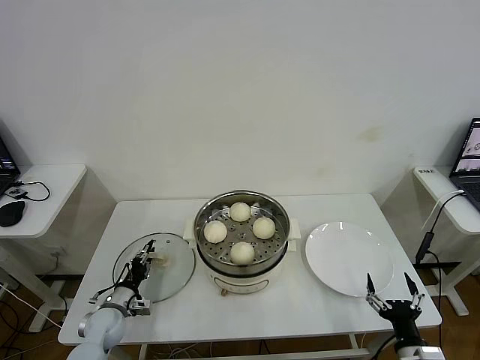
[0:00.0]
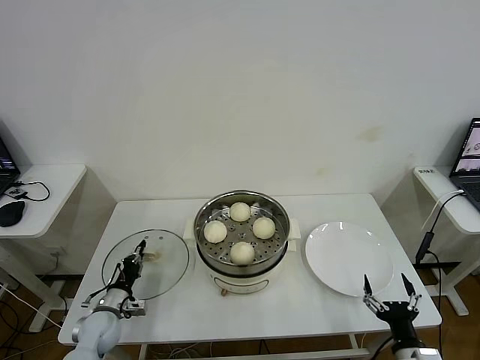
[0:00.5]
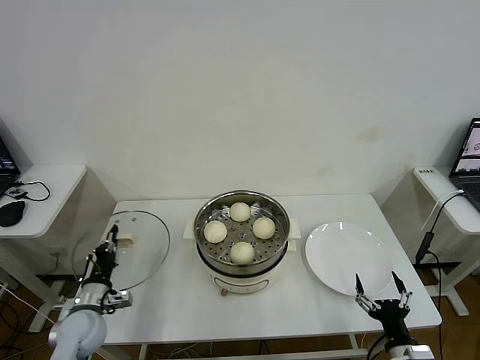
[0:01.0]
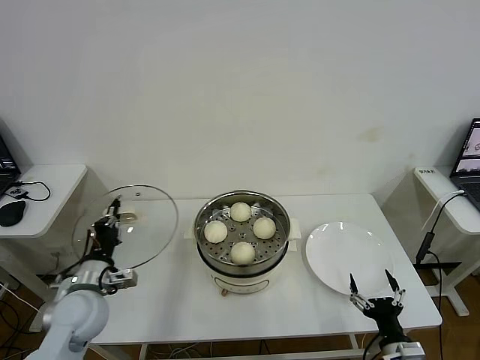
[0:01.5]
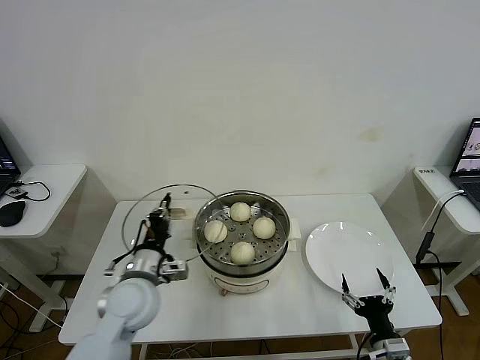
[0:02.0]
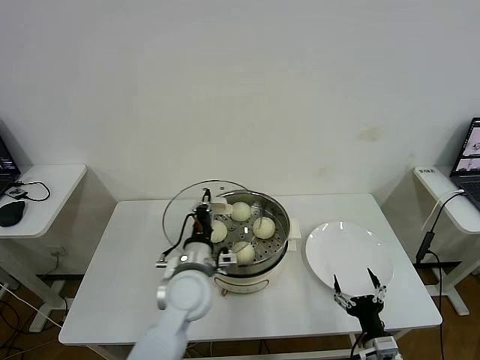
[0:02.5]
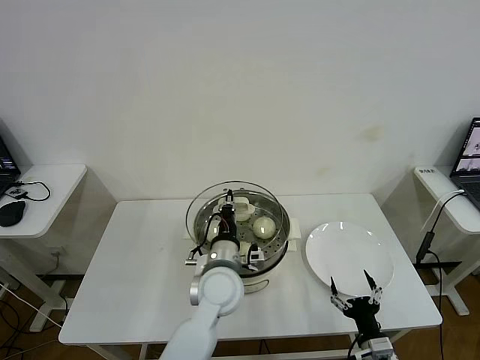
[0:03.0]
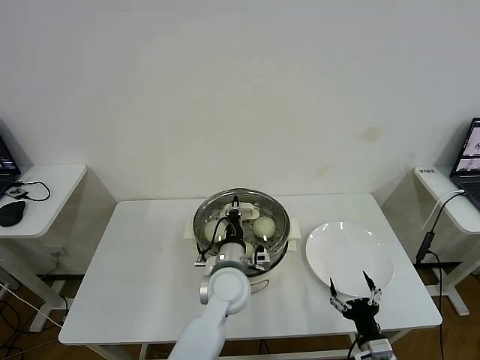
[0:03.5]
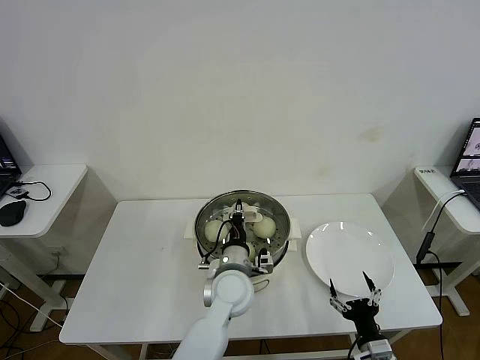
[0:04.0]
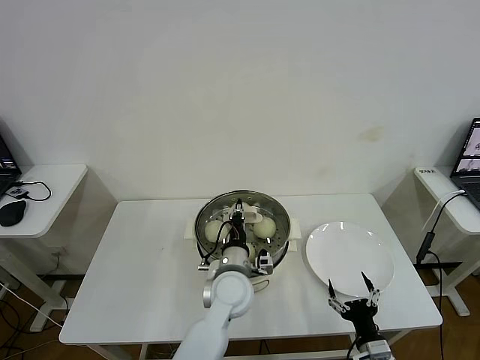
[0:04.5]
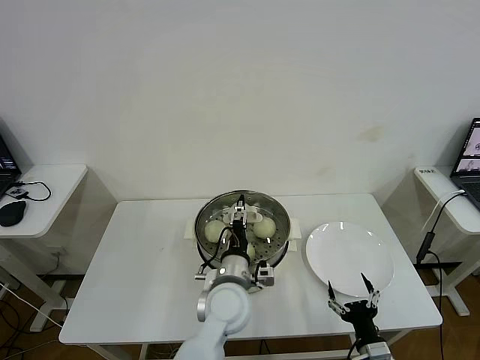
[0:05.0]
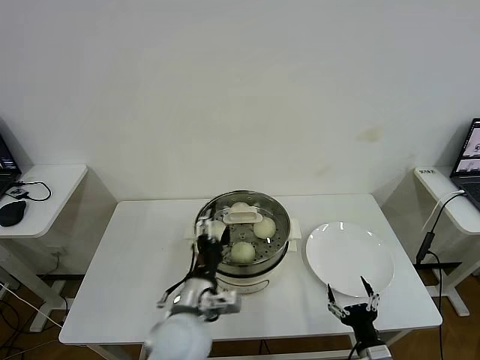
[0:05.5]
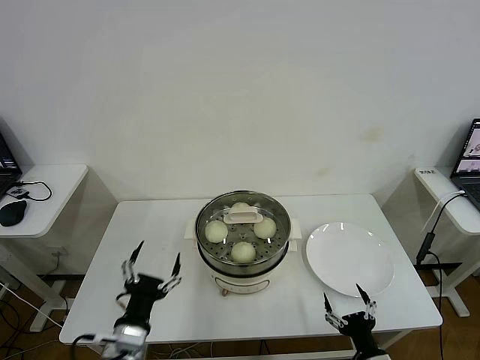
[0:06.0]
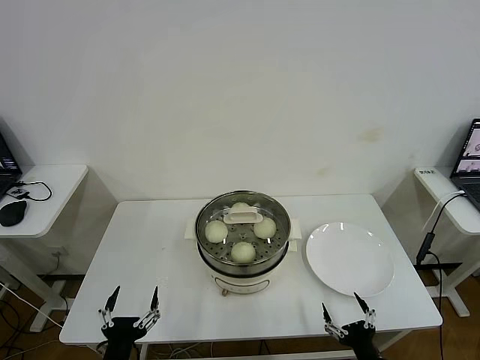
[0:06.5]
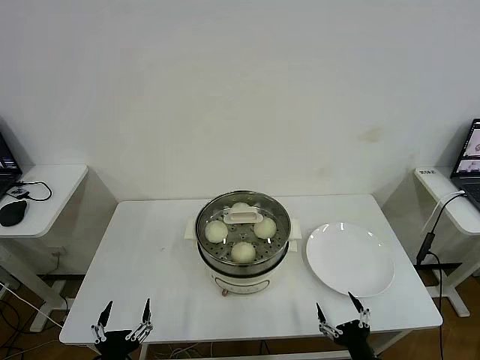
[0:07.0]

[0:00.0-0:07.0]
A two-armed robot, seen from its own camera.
Task of the whole recording: take steamed baozi put them in steamer then cover it.
Step, 0:00.5 to 0:05.0: Place the pot lid on the steamer with left gripper.
0:00.0 to 0:02.0: The left gripper heads upward and to the right, covering roughly 25 cm, and closes.
0:02.0 to 0:03.5: The left gripper moves to the right, about 20 cm.
0:03.5 to 0:05.0: The left gripper opens.
0:05.0 to 0:07.0: The left gripper goes approximately 35 cm to the left and backward.

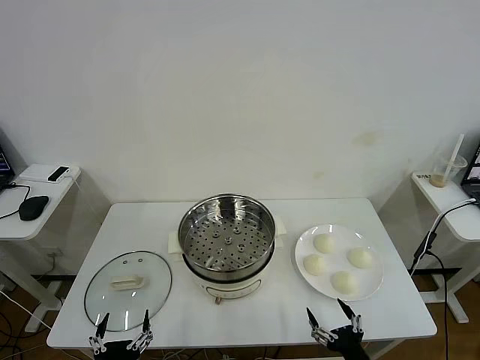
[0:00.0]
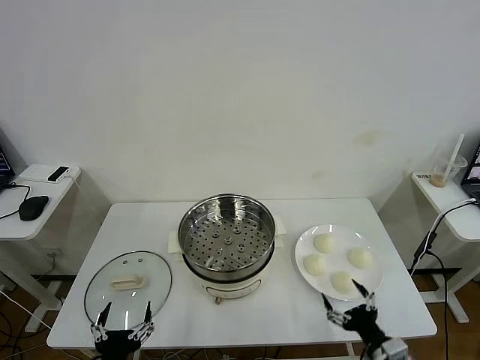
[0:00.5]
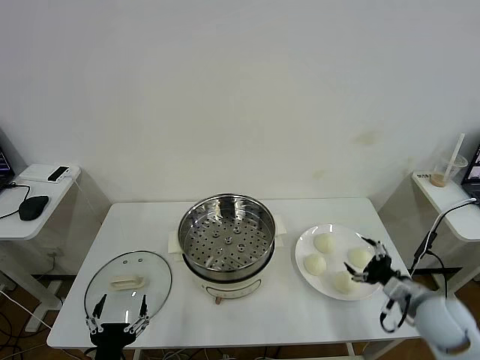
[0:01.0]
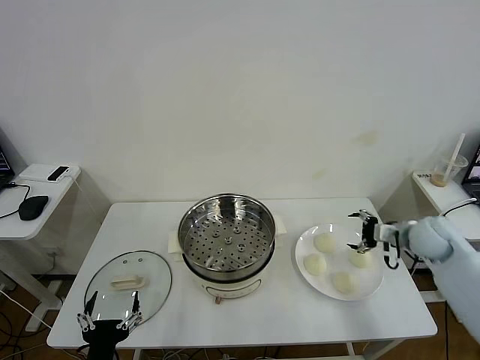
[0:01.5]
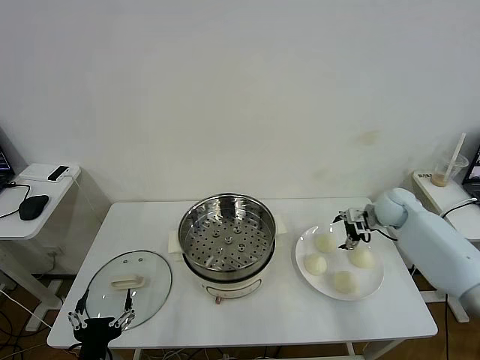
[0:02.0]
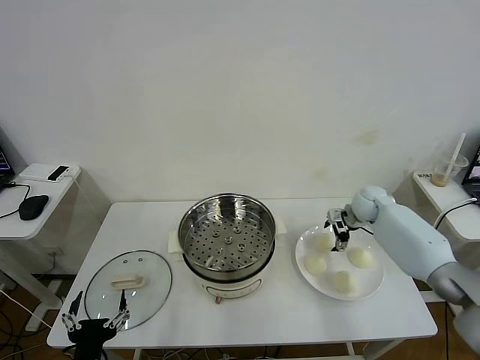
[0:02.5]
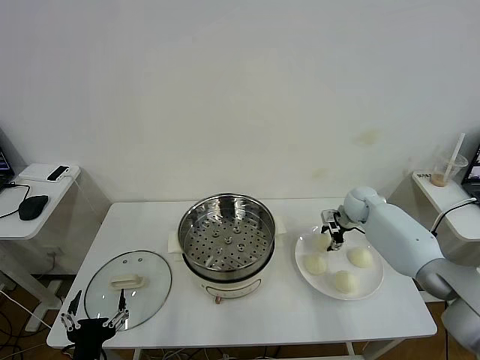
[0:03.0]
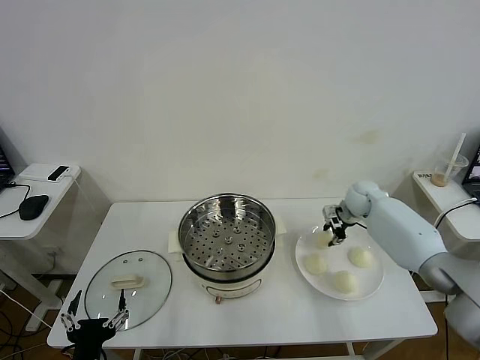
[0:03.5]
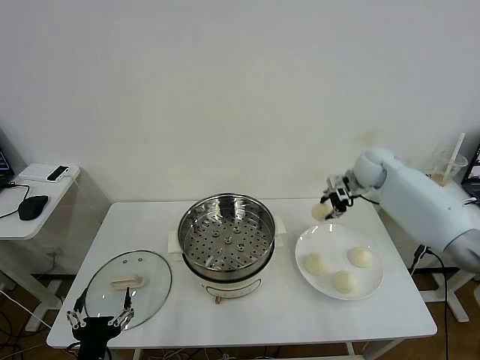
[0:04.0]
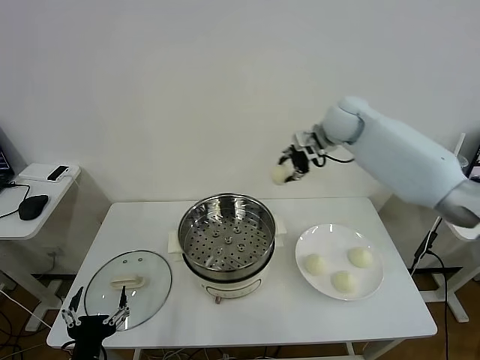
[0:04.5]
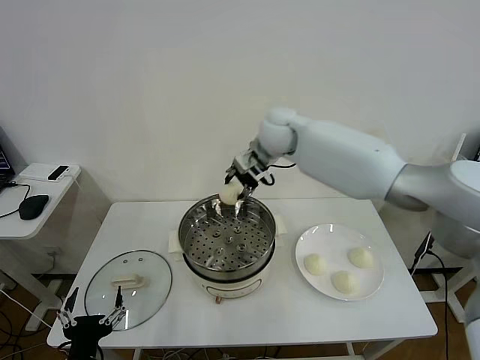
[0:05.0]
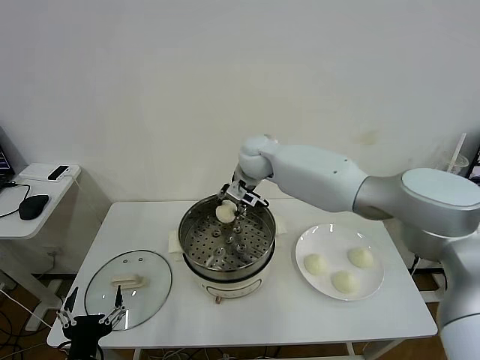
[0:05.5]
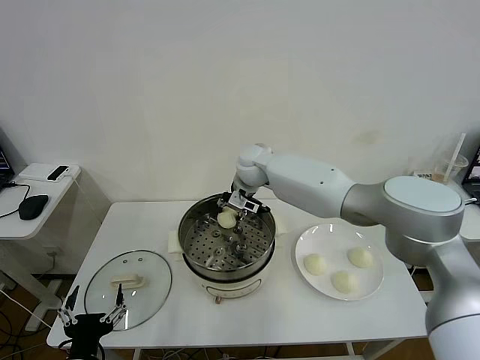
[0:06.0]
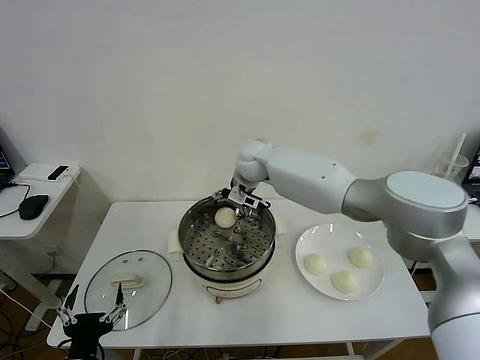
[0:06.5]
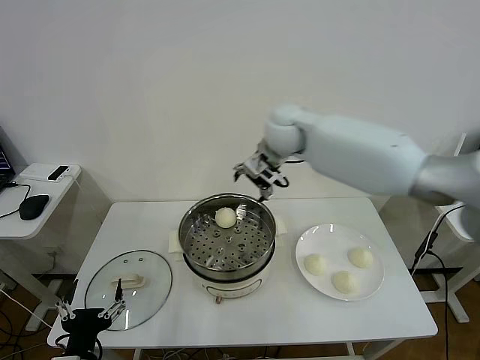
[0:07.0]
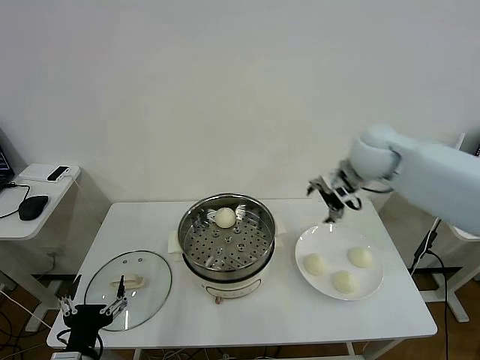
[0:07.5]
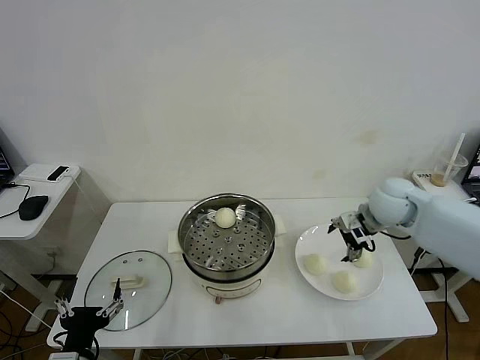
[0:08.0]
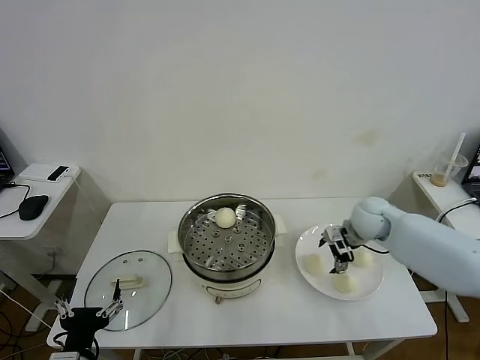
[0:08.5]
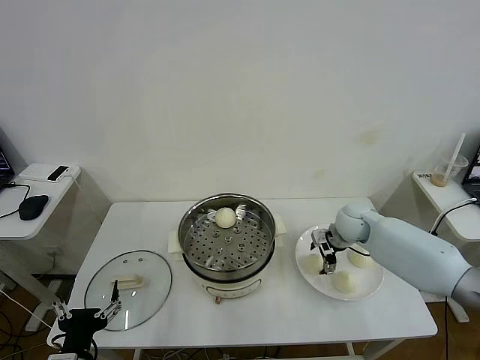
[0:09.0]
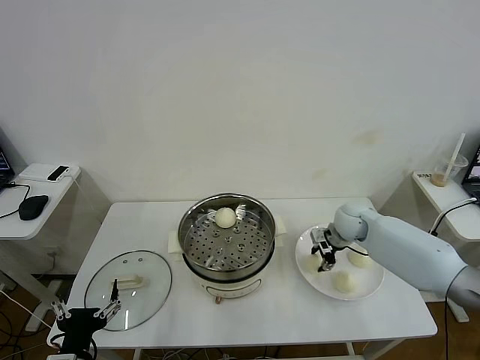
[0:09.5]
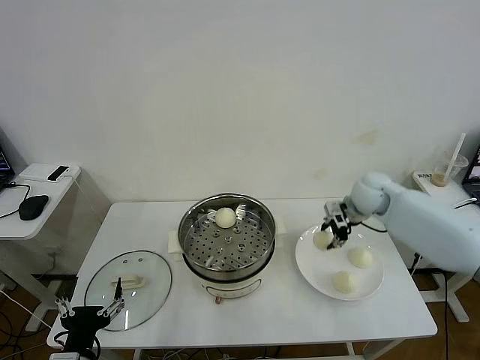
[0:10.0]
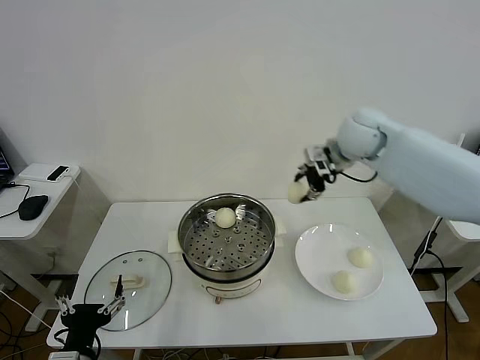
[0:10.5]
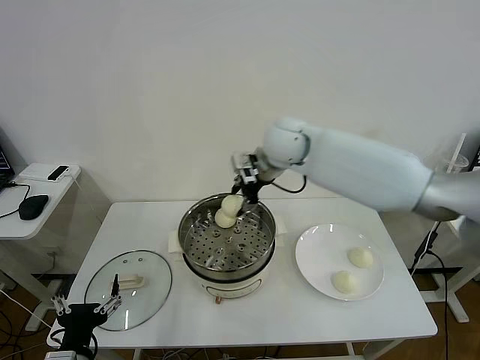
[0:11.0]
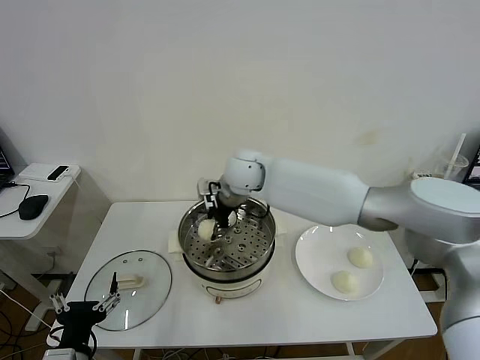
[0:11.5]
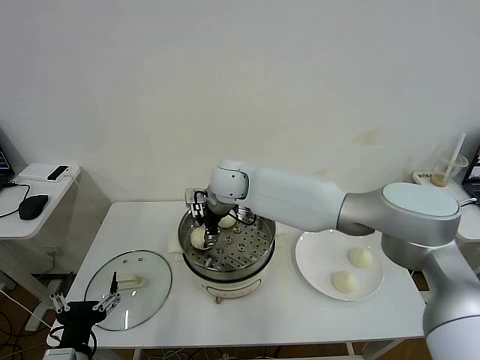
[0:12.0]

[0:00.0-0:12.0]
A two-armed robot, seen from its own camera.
Task of the whole recording: take steamed baozi put them in steamer then cover it.
Step, 0:00.0 to 0:03.0: Grasp the baozi in the plate with right gripper.
Step, 0:03.5 to 0:06.0: Place the baozi on the steamer with right gripper.
Step, 0:07.0 to 0:09.0: Grasp the baozi in the plate with right gripper.
0:02.0 to 0:04.0: The right gripper is displaced upward and to the left by some 15 cm, and closes.
0:04.0 to 0:06.0: The right gripper heads to the left, covering roughly 30 cm.
0:06.0 to 0:08.0: The right gripper travels to the right and backward by about 30 cm, and opens.
0:08.0 to 0:10.0: The right gripper moves forward, roughly 5 cm, reaches about 10 cm downward, then returns, and closes its fingers.
0:10.0 to 0:12.0: The right gripper shifts roughly 35 cm to the left, and opens its fingers.

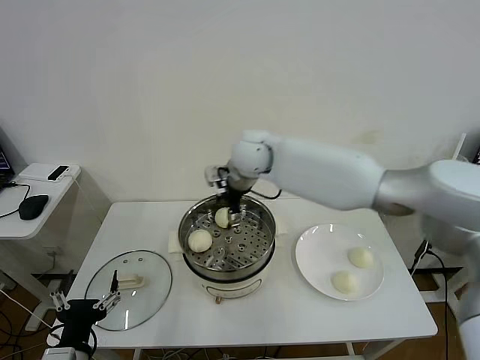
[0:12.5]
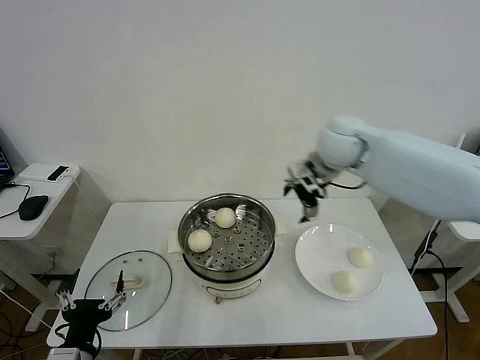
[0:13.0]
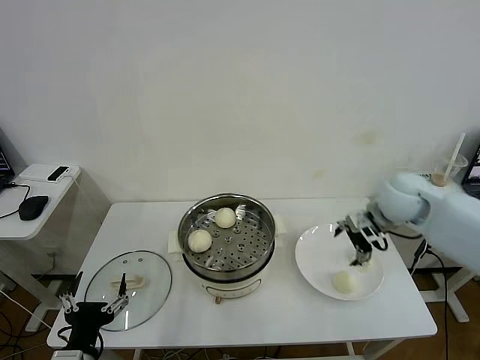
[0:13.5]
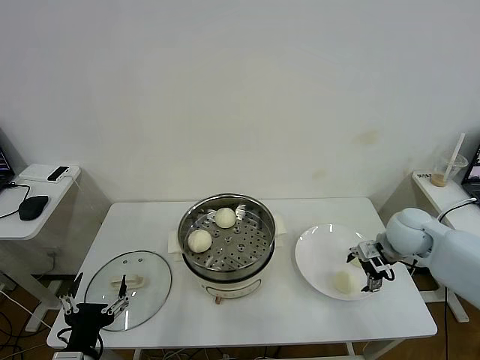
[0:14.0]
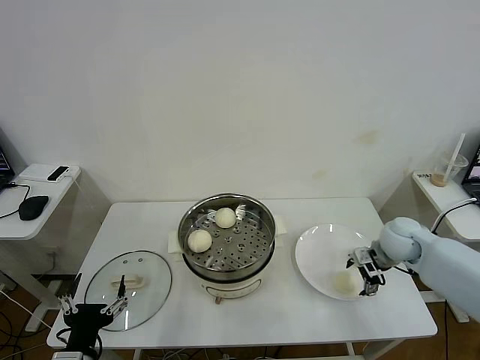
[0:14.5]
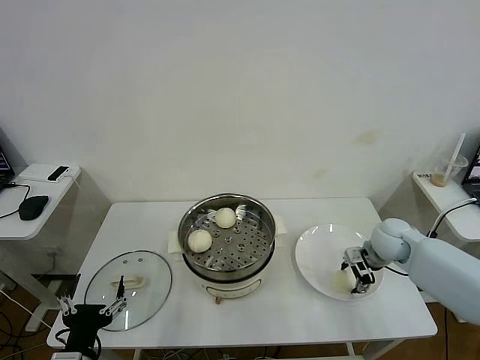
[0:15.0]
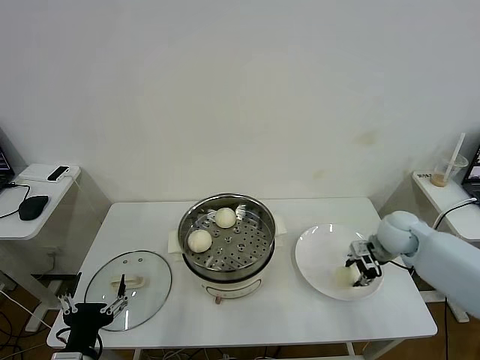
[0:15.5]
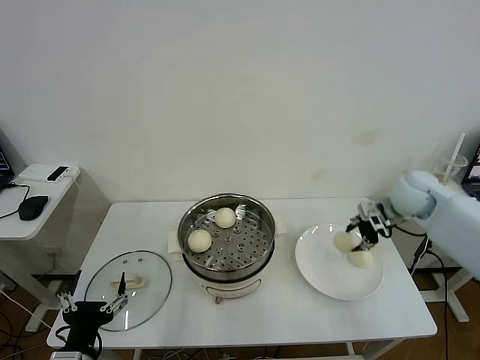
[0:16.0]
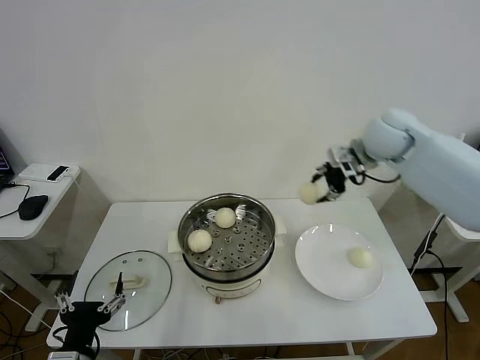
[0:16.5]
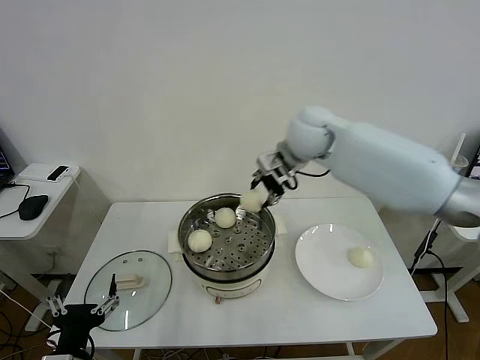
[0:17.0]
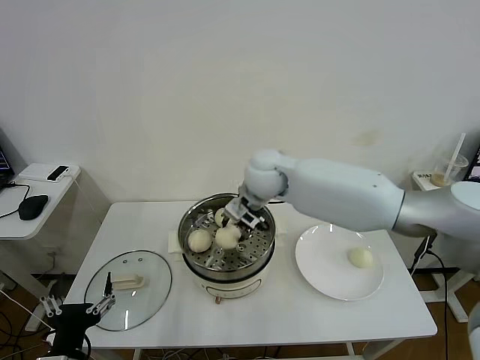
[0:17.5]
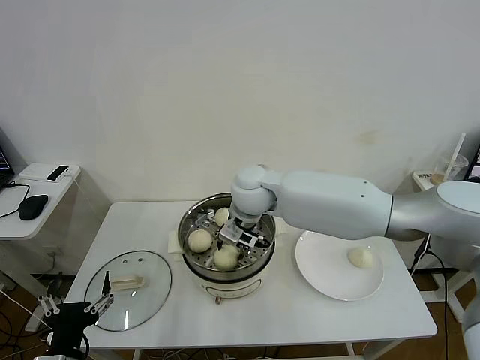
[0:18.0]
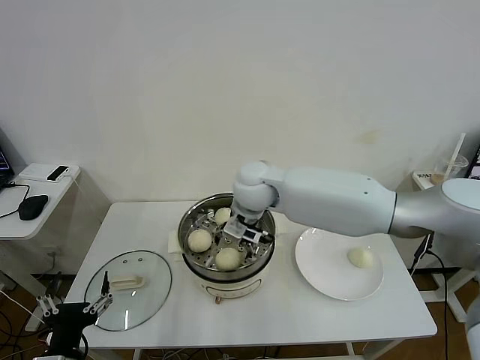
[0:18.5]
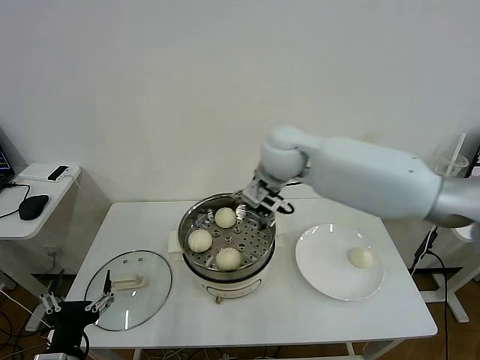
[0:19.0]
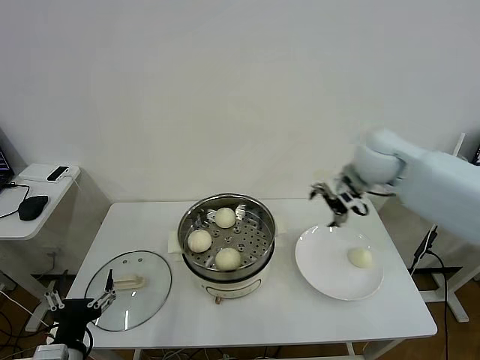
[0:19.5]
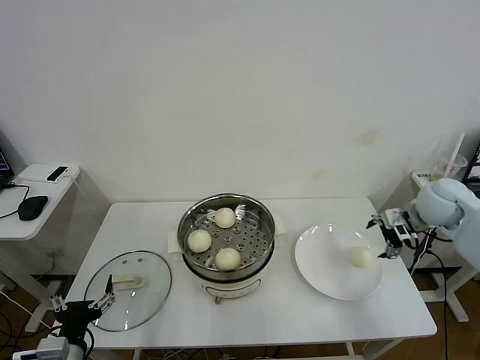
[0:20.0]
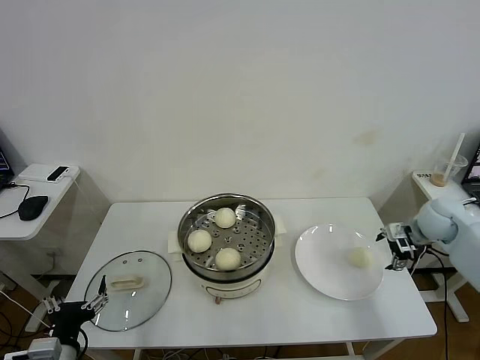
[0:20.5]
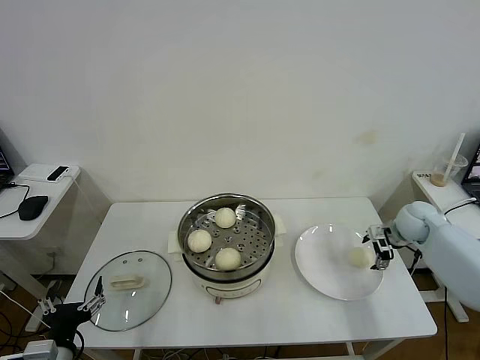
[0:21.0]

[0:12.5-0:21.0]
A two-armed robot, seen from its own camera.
Task of the whole recording: take steamed baozi put them in steamer then cover it.
Step, 0:12.5 to 0:15.0: Grasp the baozi in the plate with right gripper.
Step, 0:15.5 to 0:18.5: Place the baozi on the steamer with right gripper.
0:12.5 to 0:14.5: The right gripper travels to the right and downward by some 40 cm.
0:14.5 to 0:16.5: The right gripper goes some 25 cm upward and to the left, and closes up.
0:16.5 to 0:19.0: The right gripper goes about 15 cm to the left, and opens.
0:19.0 to 0:21.0: The left gripper changes place by some 5 cm. Meanwhile the right gripper heads to the right and downward, covering about 40 cm.
